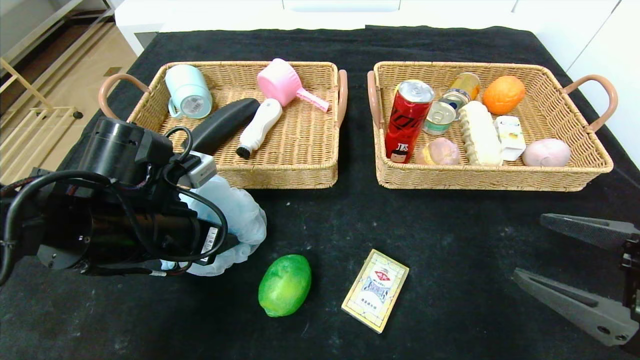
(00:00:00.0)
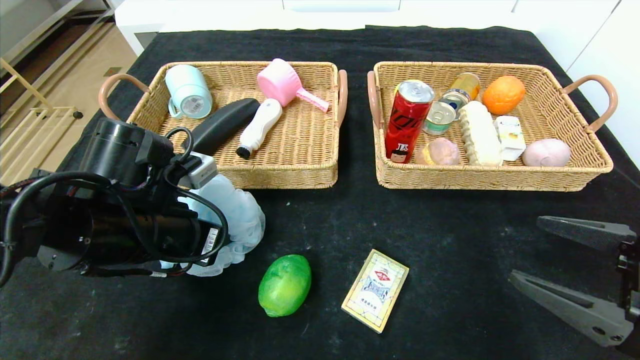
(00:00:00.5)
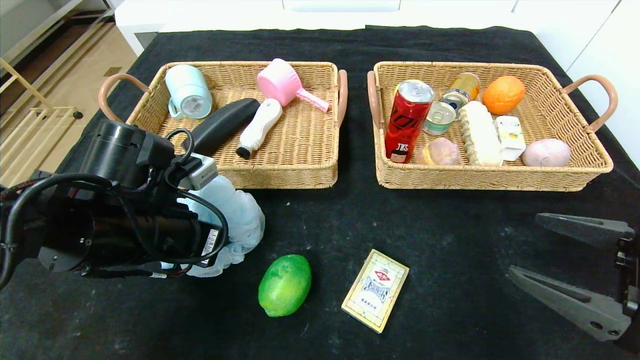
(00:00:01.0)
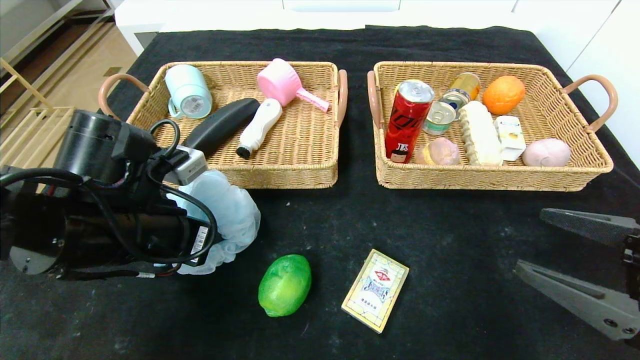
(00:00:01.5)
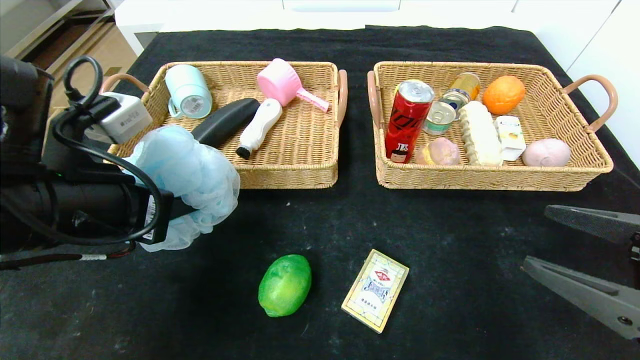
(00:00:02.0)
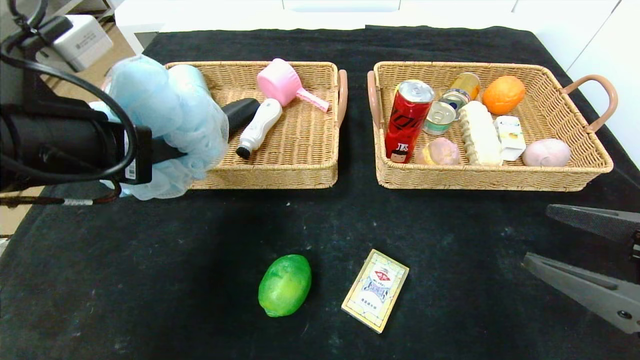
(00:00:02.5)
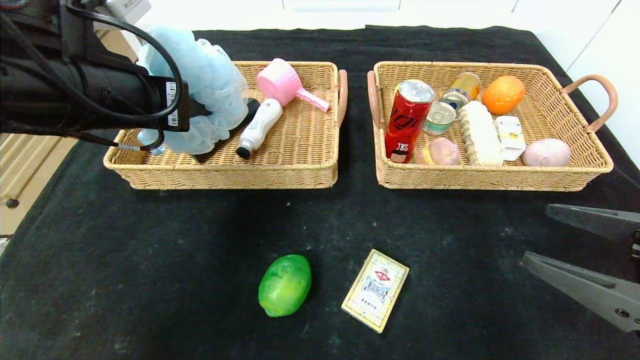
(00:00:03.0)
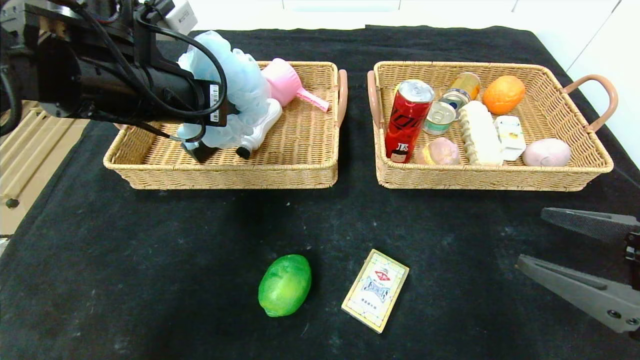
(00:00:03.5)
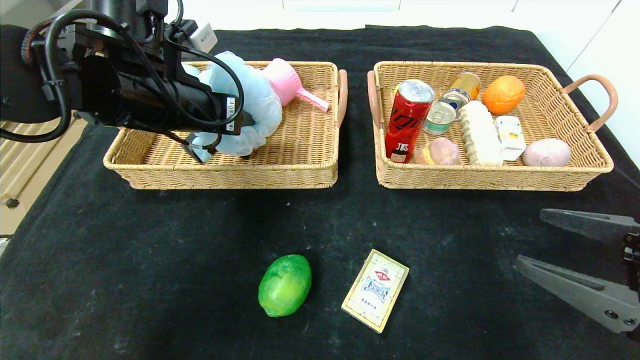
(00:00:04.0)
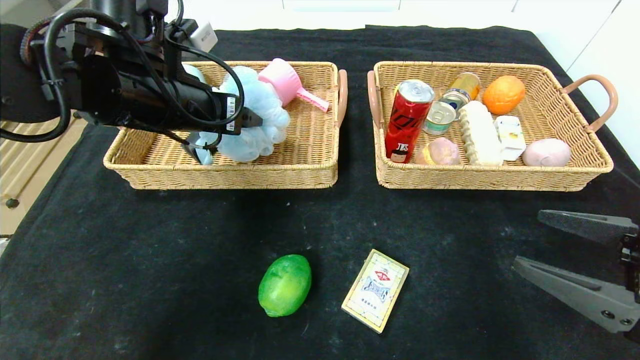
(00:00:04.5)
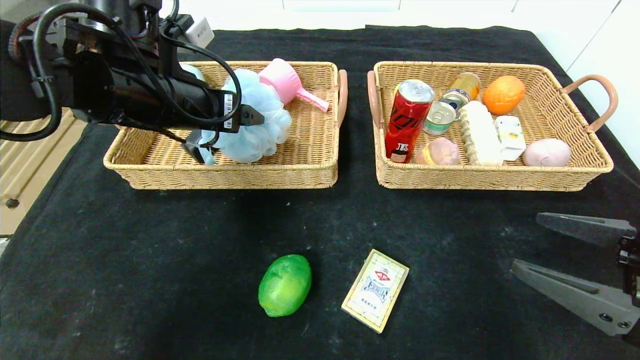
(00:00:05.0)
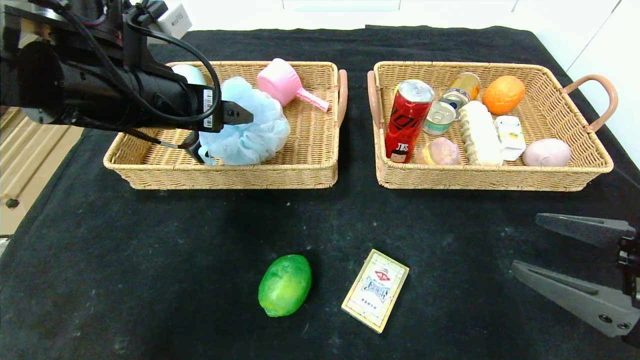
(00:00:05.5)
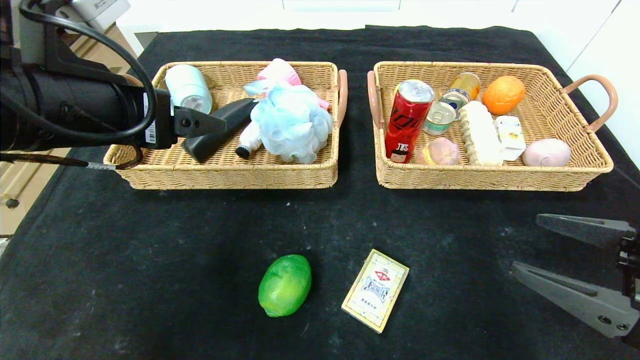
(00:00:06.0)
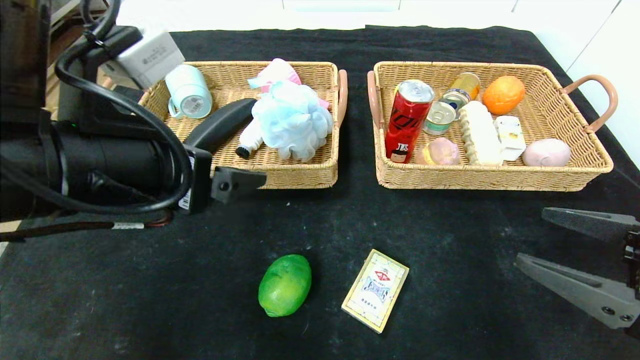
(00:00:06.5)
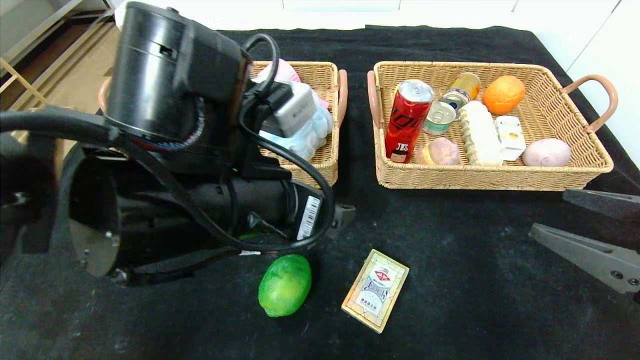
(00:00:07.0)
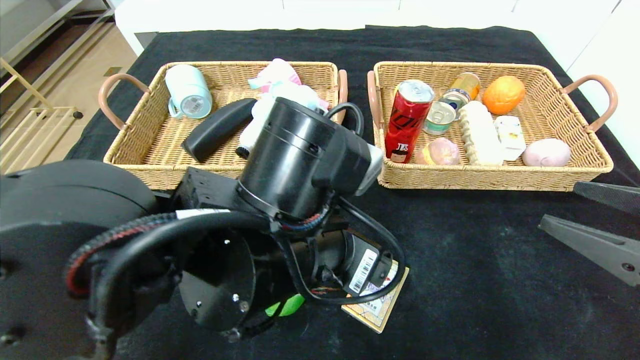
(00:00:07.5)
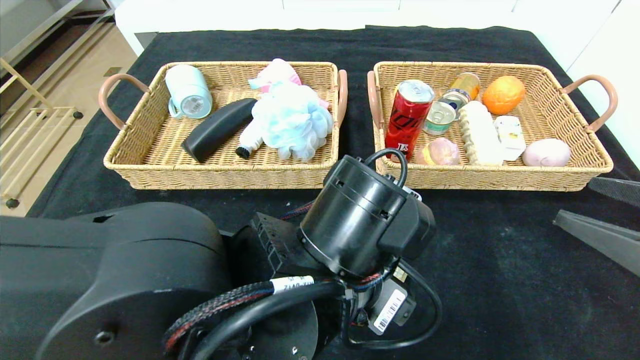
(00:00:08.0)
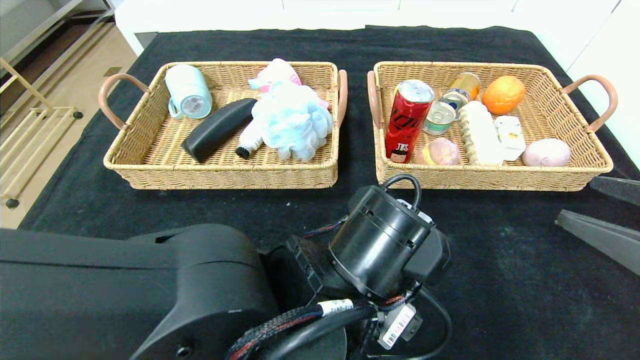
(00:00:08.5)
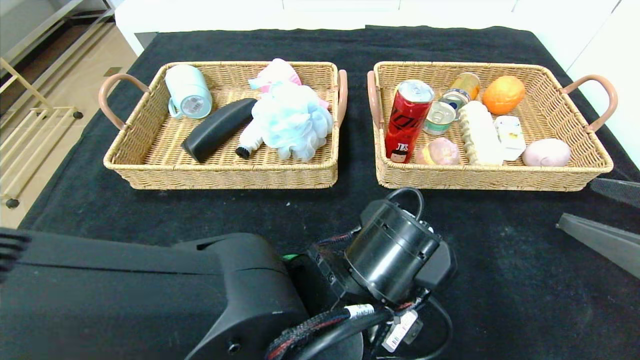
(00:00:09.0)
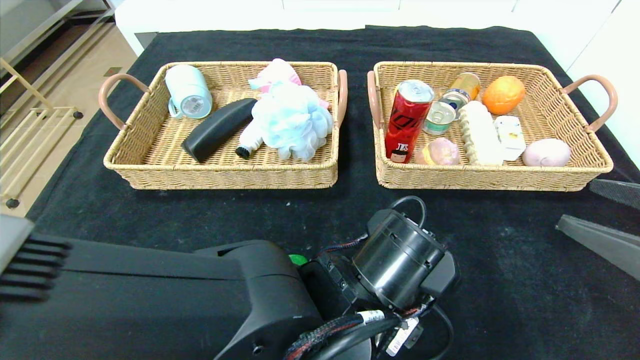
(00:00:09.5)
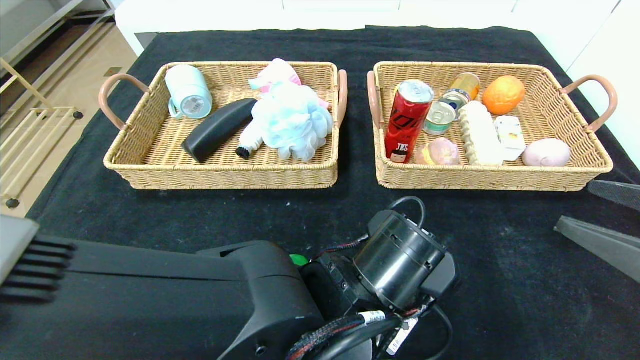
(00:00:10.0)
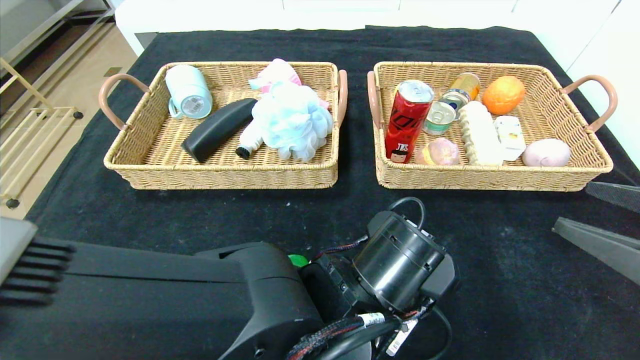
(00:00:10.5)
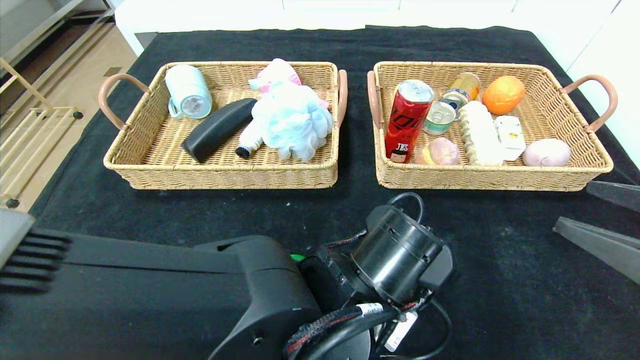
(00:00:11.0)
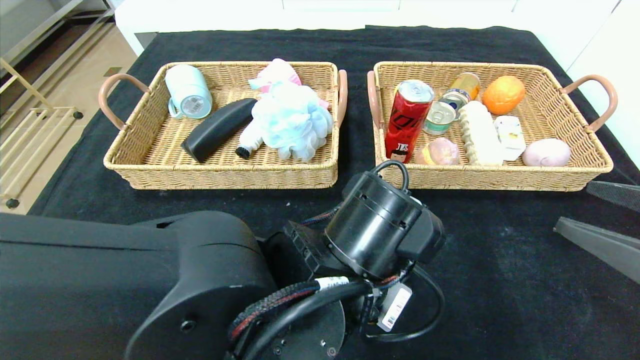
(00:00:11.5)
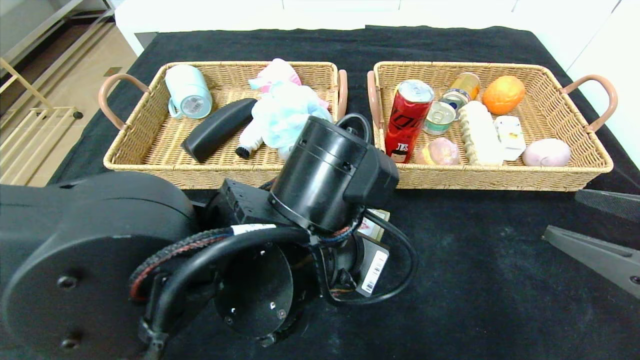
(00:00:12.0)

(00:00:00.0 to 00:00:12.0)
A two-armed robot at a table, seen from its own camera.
Step, 00:00:00.0 - 00:00:05.0: Grasp the bath ball and put it in the left basket.
00:00:00.0 - 00:00:02.0: The left gripper goes roughly 5 cm upward, and closes up.
00:00:02.0 - 00:00:04.0: The left gripper travels forward by some 15 cm, and opens its fingers.
00:00:04.0 - 00:00:06.0: The left gripper travels backward by approximately 10 cm, and opens its fingers.
00:00:06.0 - 00:00:08.0: The left gripper is displaced to the right and downward by about 25 cm.
00:00:08.0 - 00:00:10.0: The left gripper ends up some 5 cm from where it was, and closes.
00:00:10.0 - 00:00:12.0: The left gripper moves upward, roughly 5 cm.

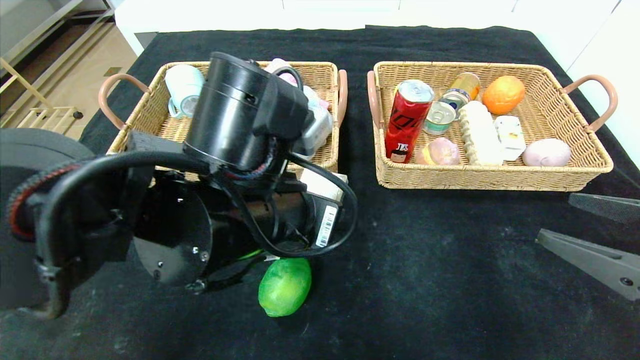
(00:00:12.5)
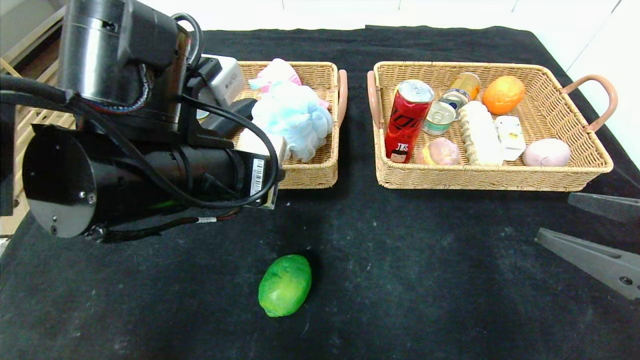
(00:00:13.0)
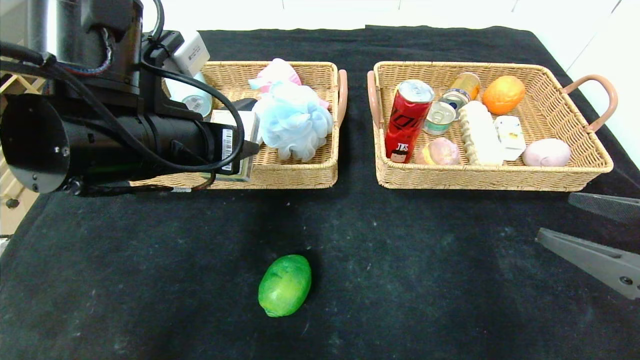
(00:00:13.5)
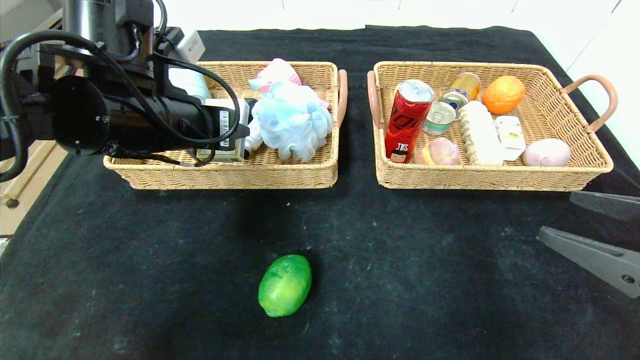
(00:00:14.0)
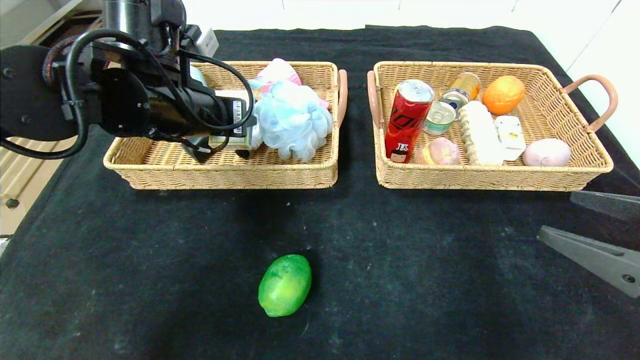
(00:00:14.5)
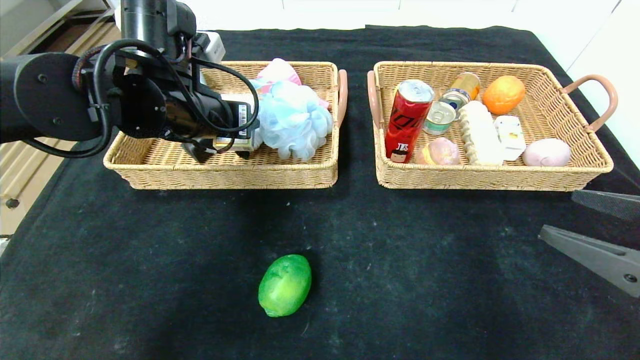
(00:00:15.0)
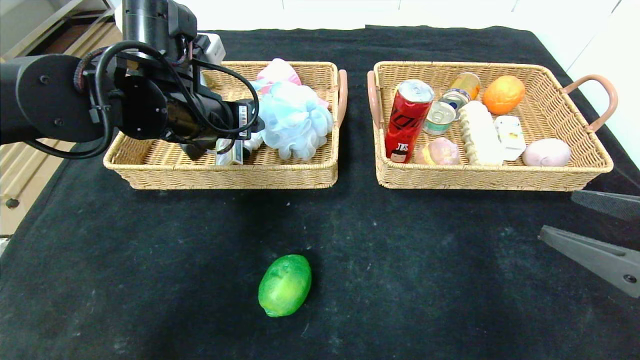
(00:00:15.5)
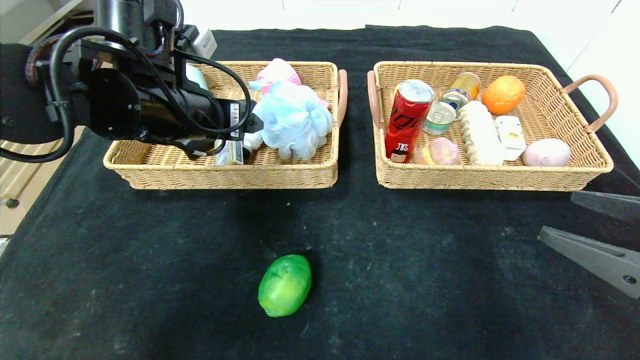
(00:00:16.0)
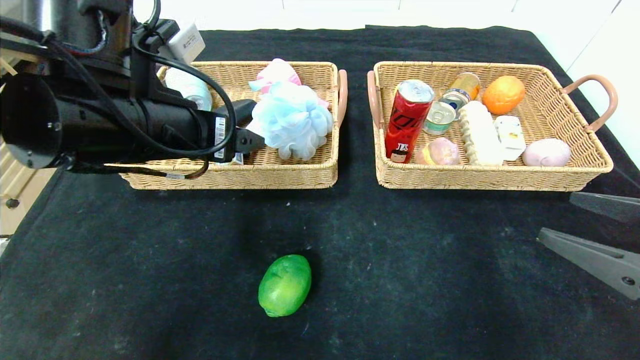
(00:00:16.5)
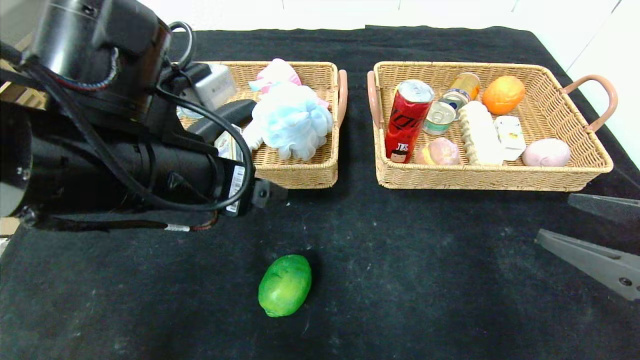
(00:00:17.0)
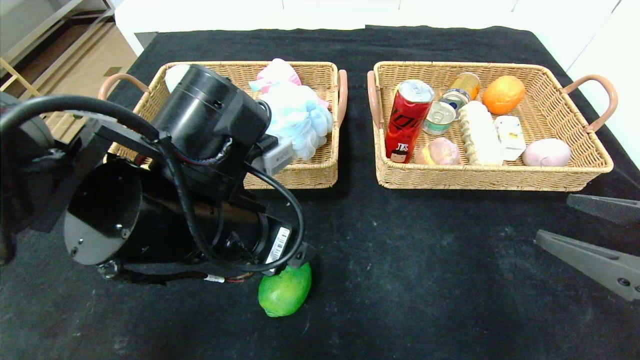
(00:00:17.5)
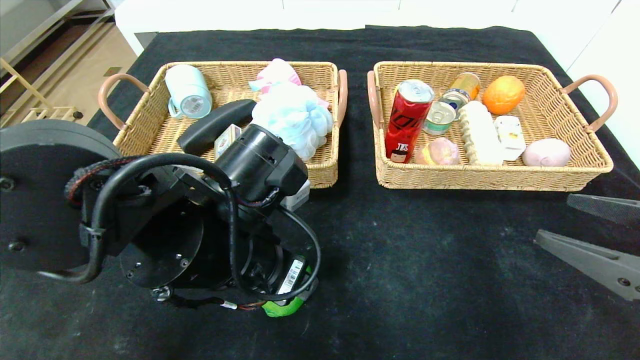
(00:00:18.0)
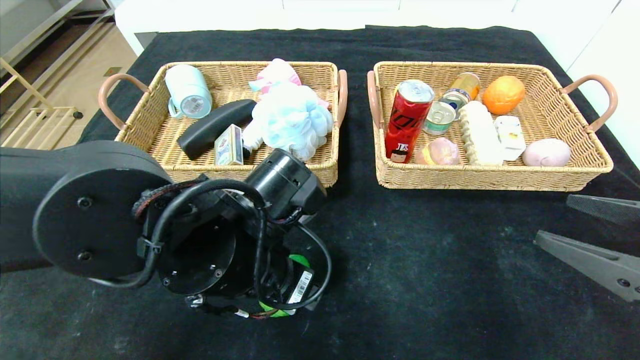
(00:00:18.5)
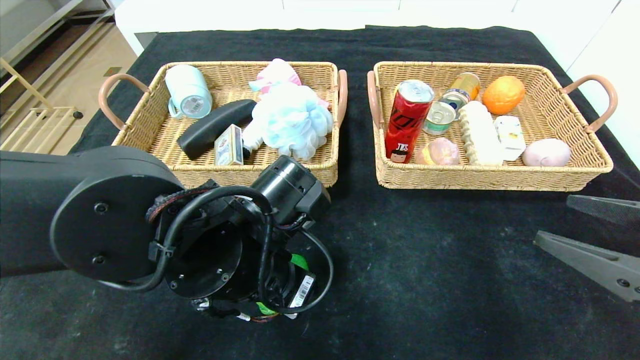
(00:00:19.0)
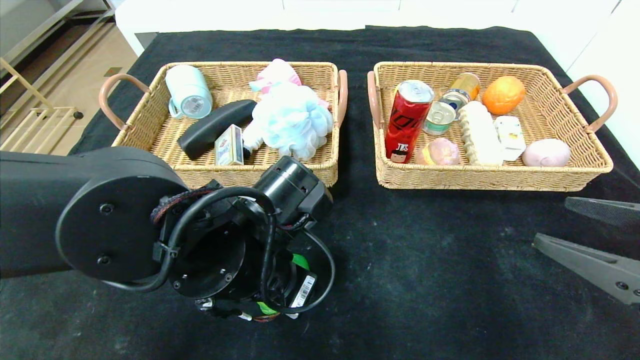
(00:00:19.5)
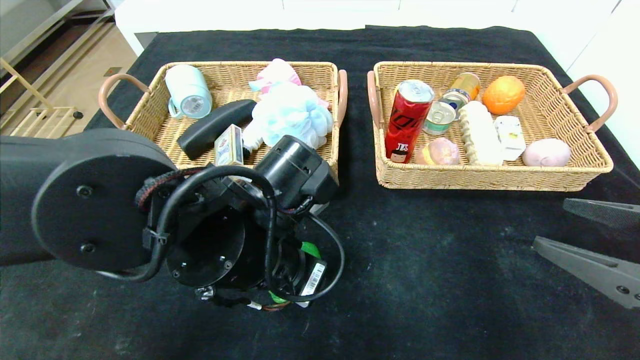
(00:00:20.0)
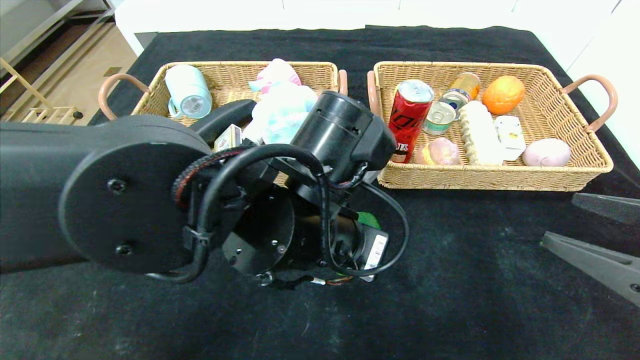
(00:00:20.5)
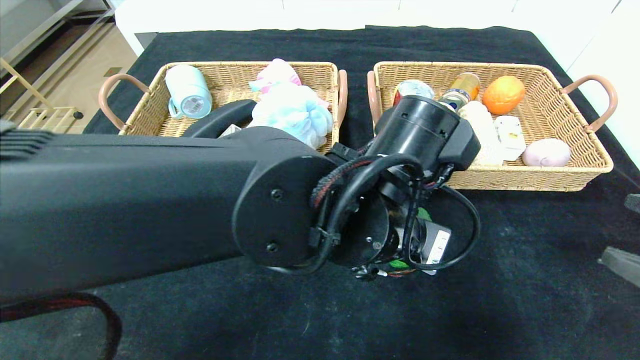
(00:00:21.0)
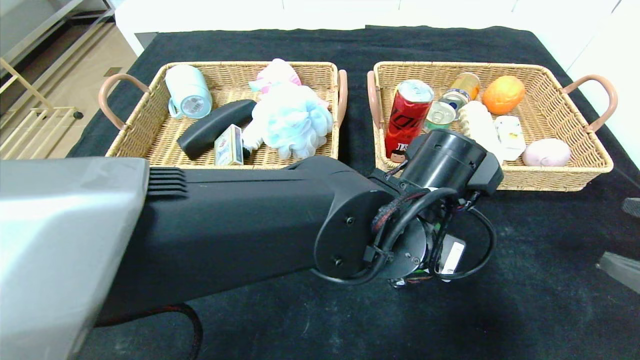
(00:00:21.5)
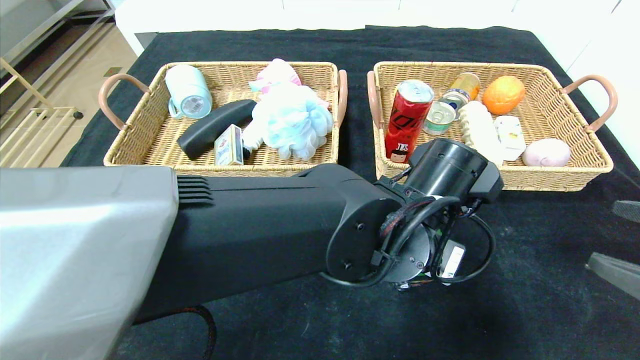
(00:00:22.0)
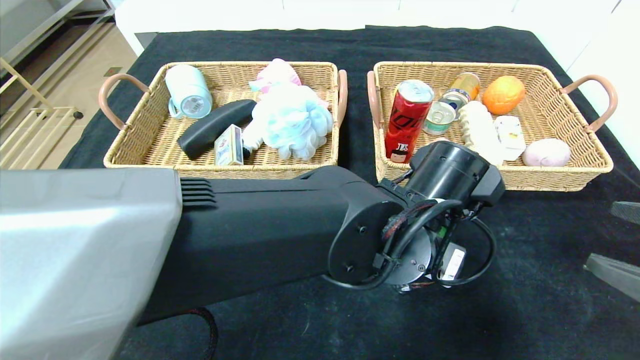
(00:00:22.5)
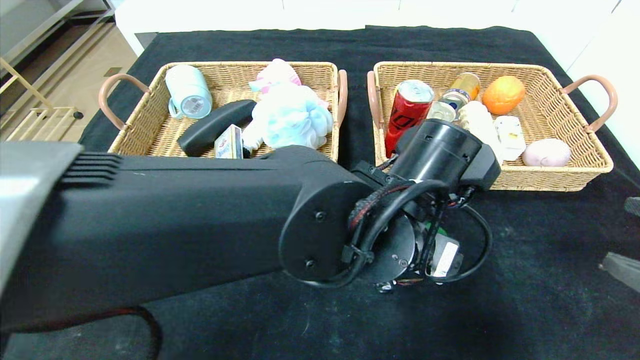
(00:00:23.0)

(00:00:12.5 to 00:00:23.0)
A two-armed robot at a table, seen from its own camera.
Step, 00:00:12.5 - 00:00:15.5: Grasp the playing cards and put it in the left basket.
Step, 00:00:16.0 - 00:00:22.5: Place the green lemon in the center of the table.
00:00:12.5 - 00:00:14.5: The left gripper moves forward, to the left and upward, some 15 cm.
00:00:14.5 - 00:00:16.5: The left gripper shifts roughly 10 cm backward, and opens up.
00:00:16.5 - 00:00:19.0: The left gripper shifts approximately 15 cm downward and to the right, and closes its fingers.
00:00:19.0 - 00:00:21.0: The left gripper shifts roughly 10 cm to the right, while the right gripper moves approximately 5 cm.
00:00:21.0 - 00:00:23.0: The left gripper opens up.
